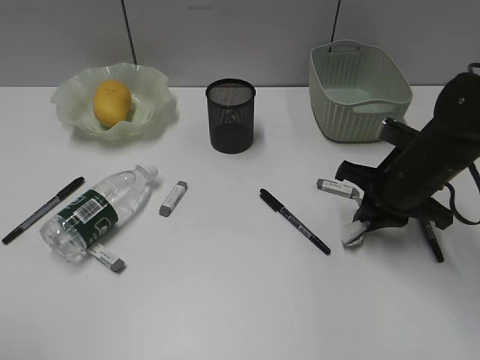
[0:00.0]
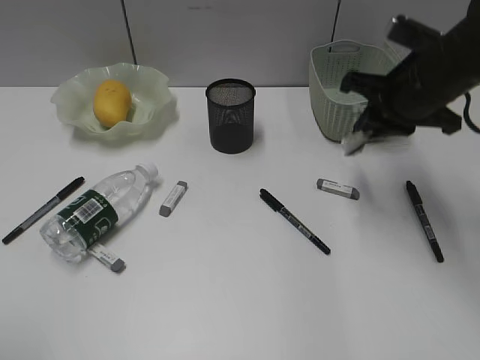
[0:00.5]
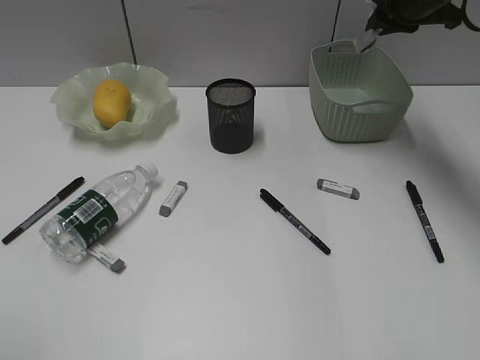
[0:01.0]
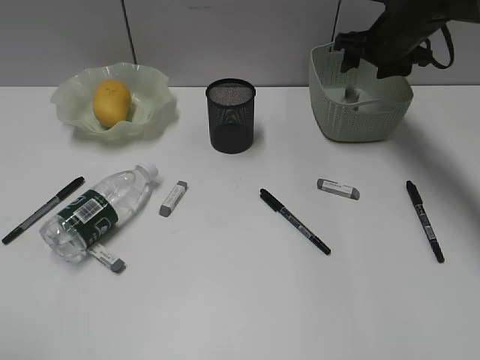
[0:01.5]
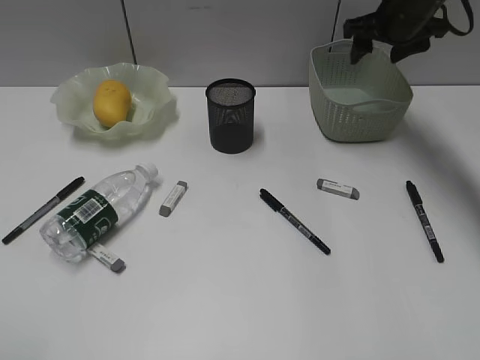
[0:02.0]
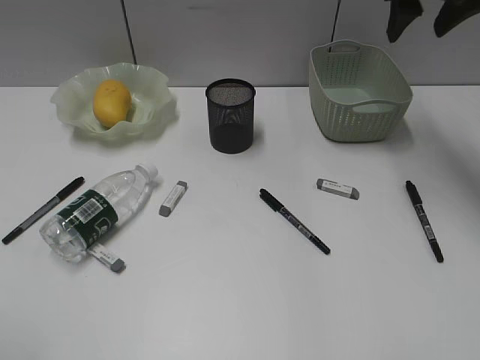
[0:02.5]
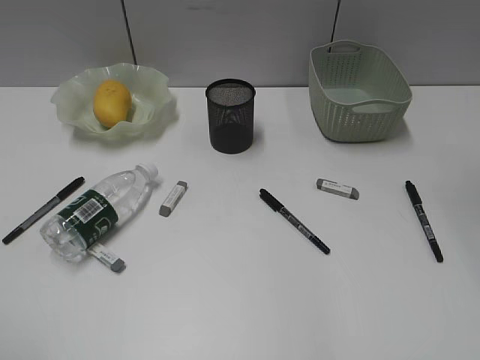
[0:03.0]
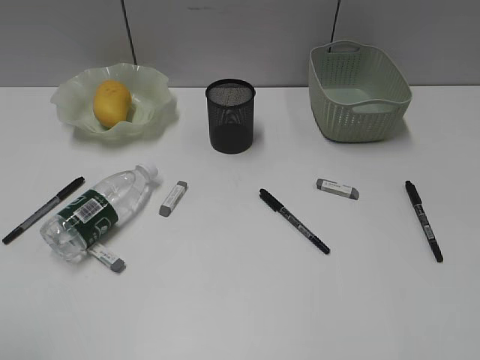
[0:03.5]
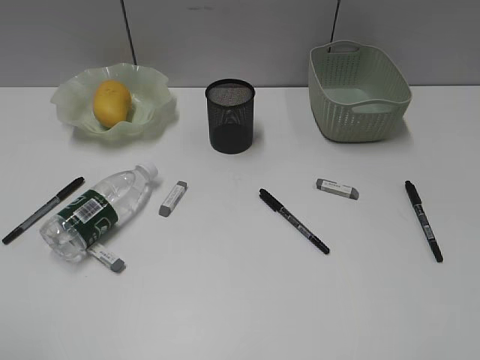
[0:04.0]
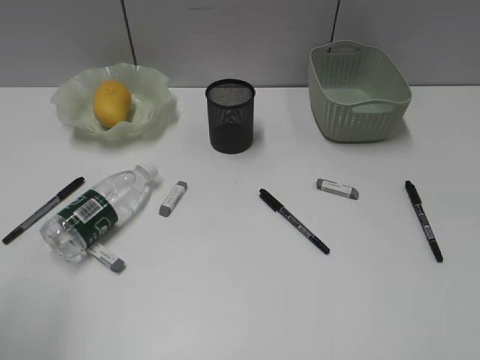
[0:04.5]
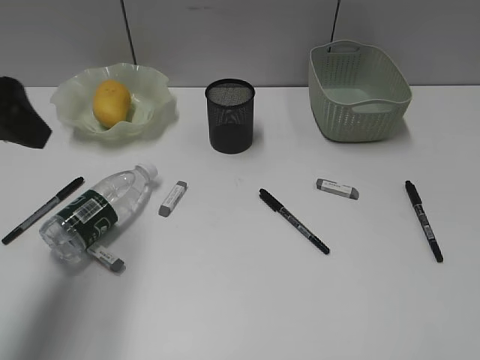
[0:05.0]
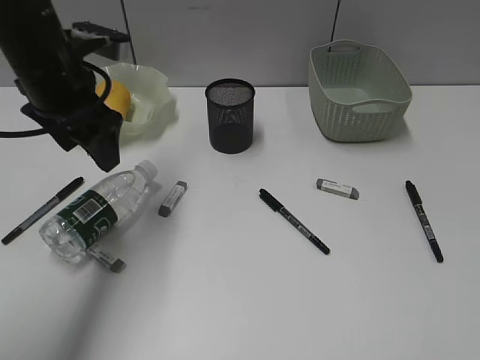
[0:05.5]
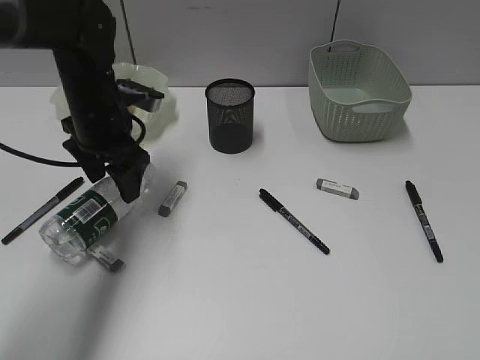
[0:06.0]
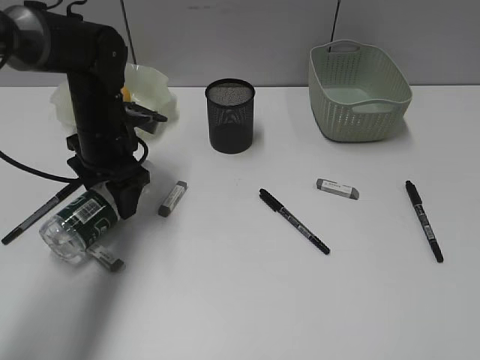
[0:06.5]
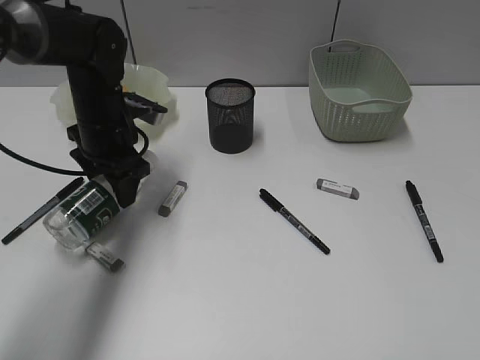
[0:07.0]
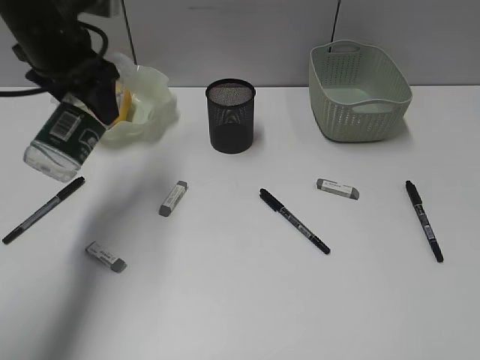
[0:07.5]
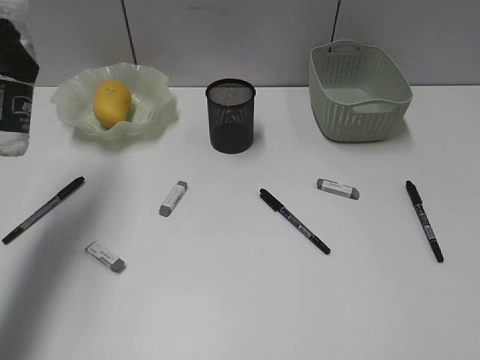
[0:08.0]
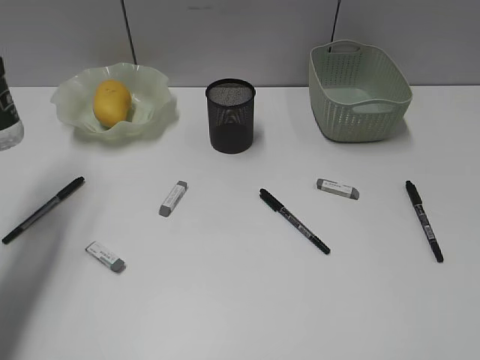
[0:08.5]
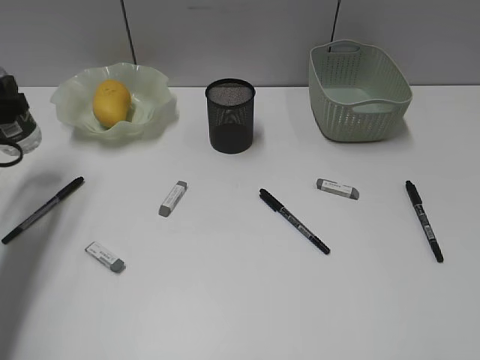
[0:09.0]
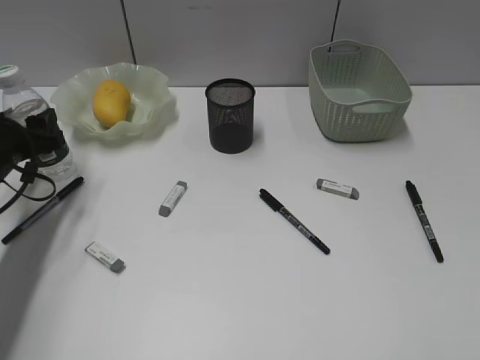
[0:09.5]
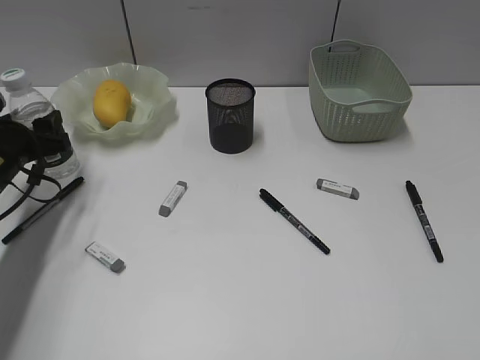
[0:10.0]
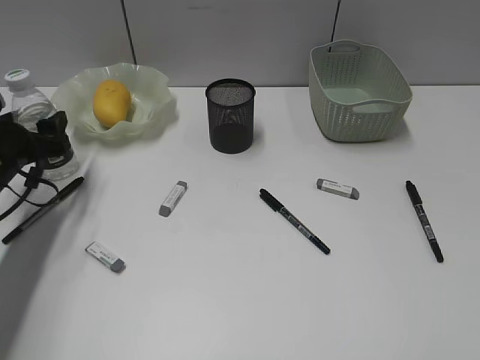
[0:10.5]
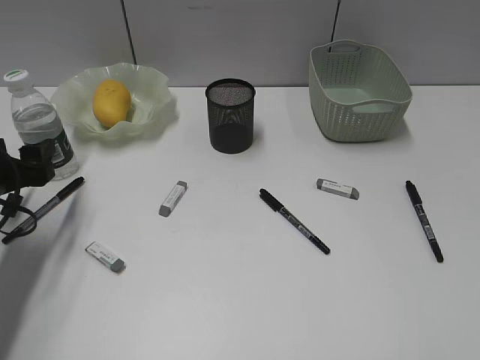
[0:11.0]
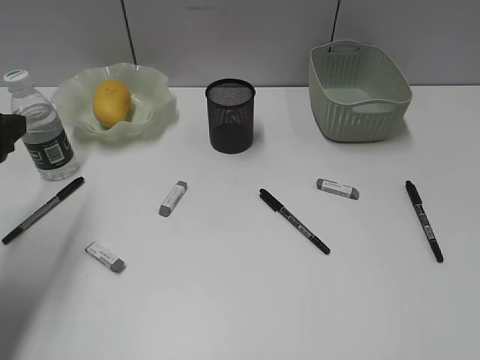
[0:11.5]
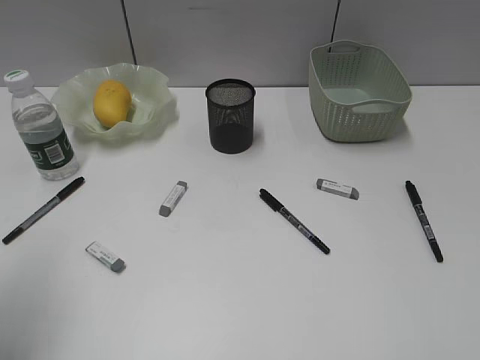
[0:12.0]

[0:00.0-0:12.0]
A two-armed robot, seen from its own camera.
Step, 0:00.0 to 0:01.5: Place the waste paper in the basket with right gripper.
Step, 0:02.0 to 0:06.5: Grasp the bottle with left gripper.
Step, 0:07.0 to 0:10.5: Stand the bottle with left gripper.
0:00.0 to 0:02.0: The right gripper travels forward and upward by roughly 20 cm, and opens.
0:02.0 to 0:04.0: The right gripper heads backward, covering roughly 50 cm.
0:04.0 to 0:06.0: The left gripper moves forward, roughly 35 cm.
0:06.0 to 0:08.0: The left gripper moves upward, to the left and backward, approximately 20 cm.
0:08.0 to 0:10.0: The left gripper shifts about 20 cm downward.
0:10.0 to 0:12.0: The left gripper heads backward and upward, covering approximately 25 cm.

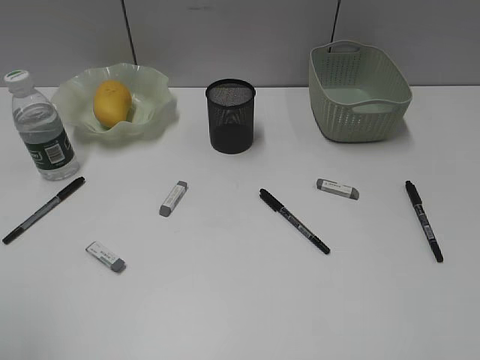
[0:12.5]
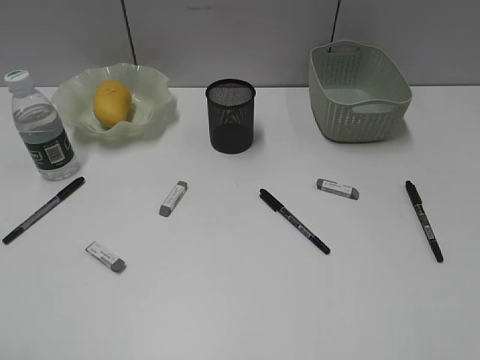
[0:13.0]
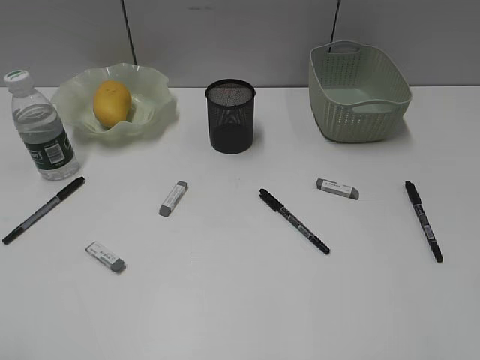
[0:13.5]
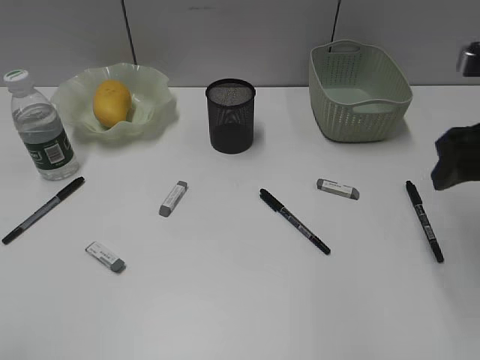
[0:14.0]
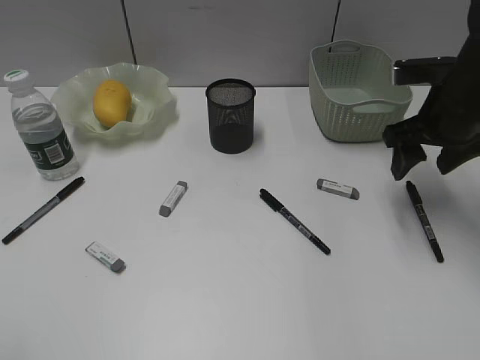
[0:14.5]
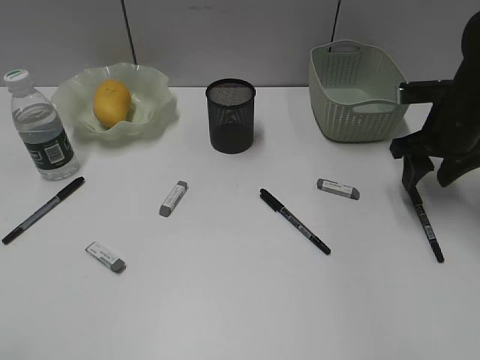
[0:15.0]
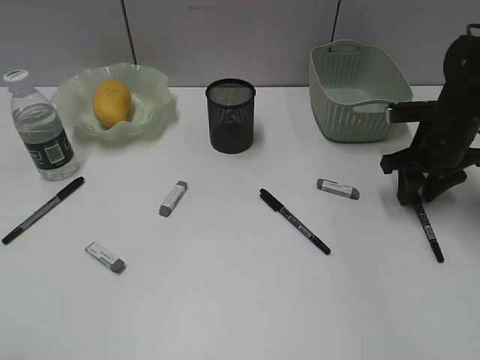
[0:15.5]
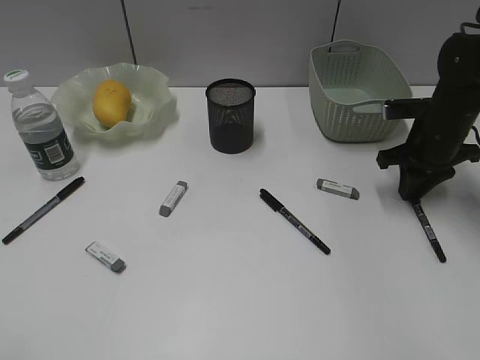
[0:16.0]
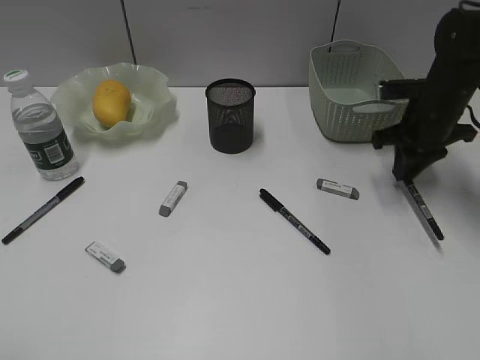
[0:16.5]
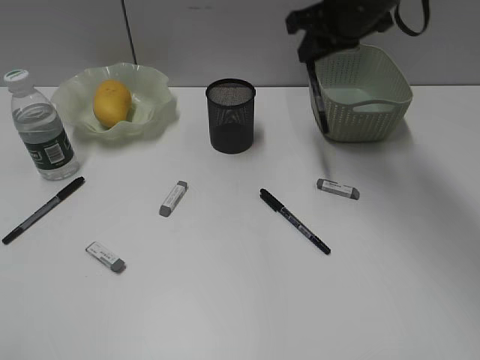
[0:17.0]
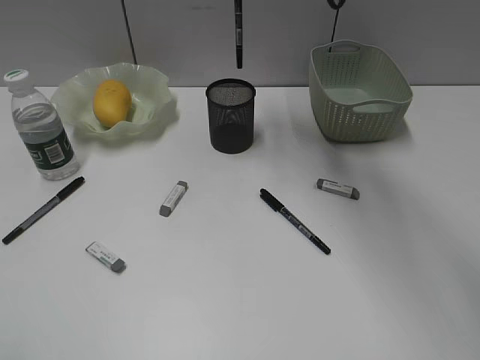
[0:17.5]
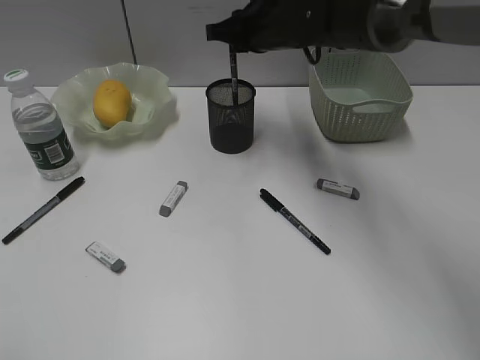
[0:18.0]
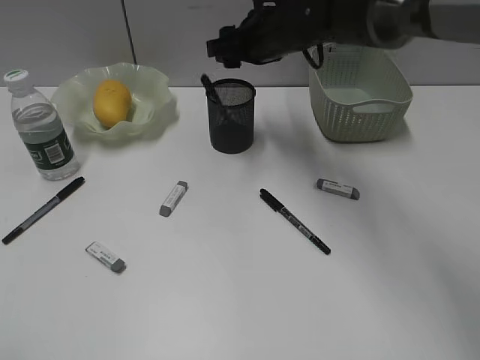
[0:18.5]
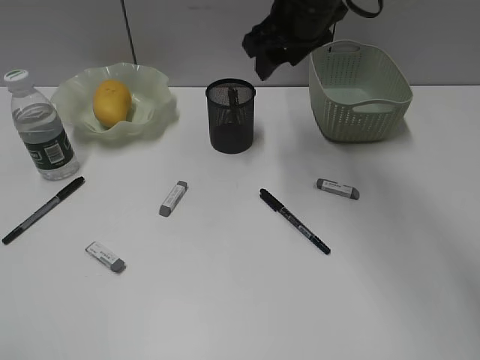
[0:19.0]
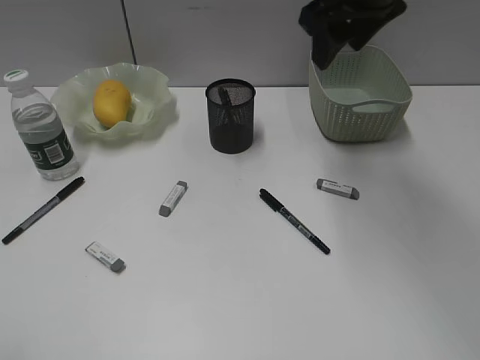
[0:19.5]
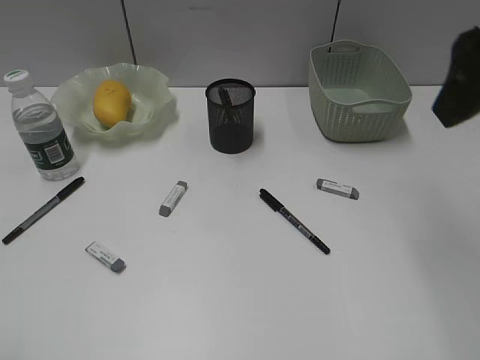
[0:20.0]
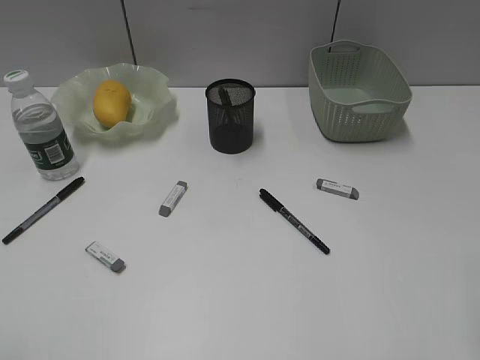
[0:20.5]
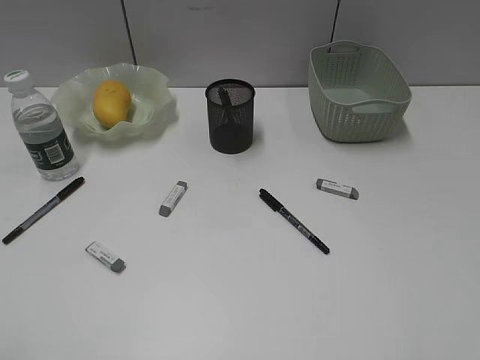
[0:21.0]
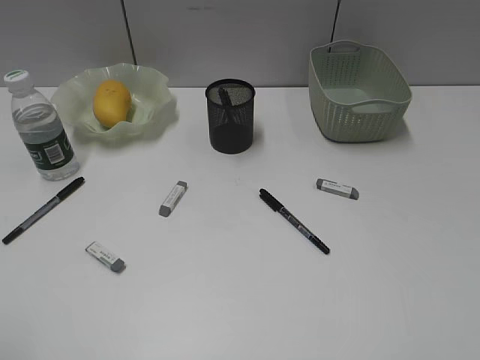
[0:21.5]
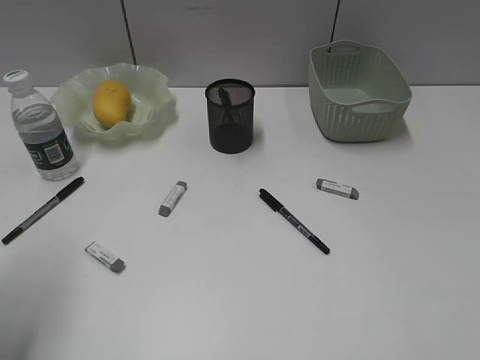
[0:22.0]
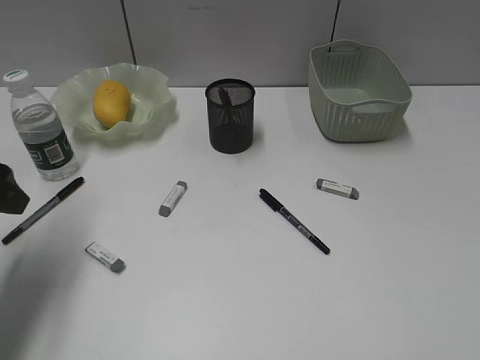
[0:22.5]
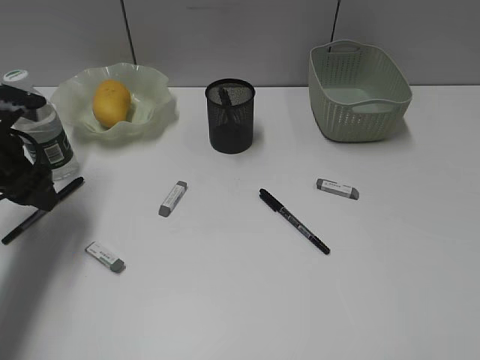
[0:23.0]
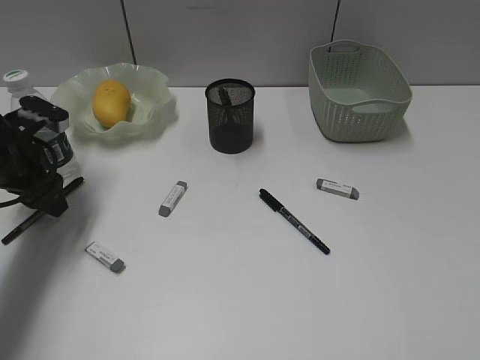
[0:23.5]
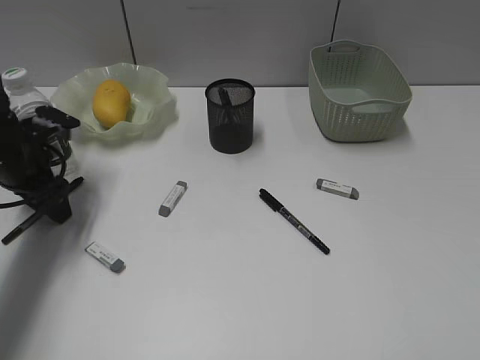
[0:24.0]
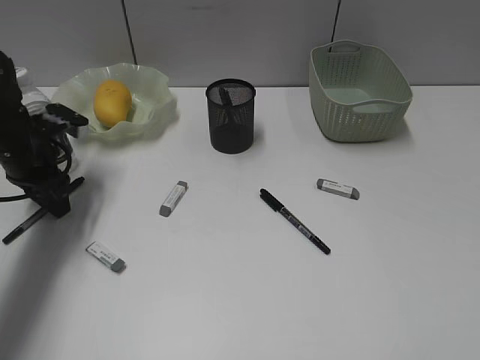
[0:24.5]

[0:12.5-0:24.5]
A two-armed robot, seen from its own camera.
Step, 0:12.5 to 0:16.0: Grasp the black pen with right gripper.
Step, 0:16.5 to 0:18.0: Place the black pen in pen holder with right gripper.
0:12.5 to 0:14.5: The right gripper shifts about 35 cm forward.
0:14.5 to 0:16.5: The right gripper goes roughly 10 cm downward and forward, and closes its fingers.
0:16.5 to 0:18.5: The right gripper moves to the left, roughly 20 cm, and opens.
0:18.5 to 0:20.5: The right gripper heads backward and to the right, covering roughly 40 cm.
0:20.5 to 0:22.5: The left gripper shifts some 25 cm forward.
0:22.5 to 0:24.5: The left gripper travels forward and downward by about 15 cm.

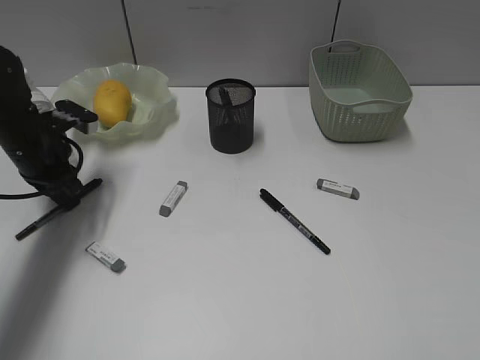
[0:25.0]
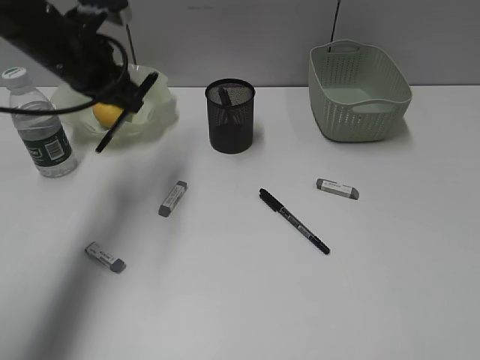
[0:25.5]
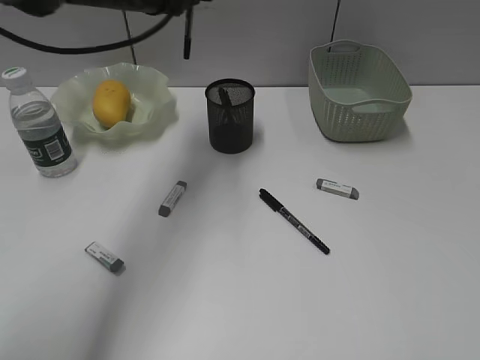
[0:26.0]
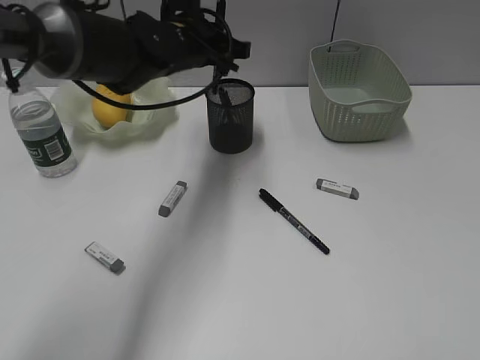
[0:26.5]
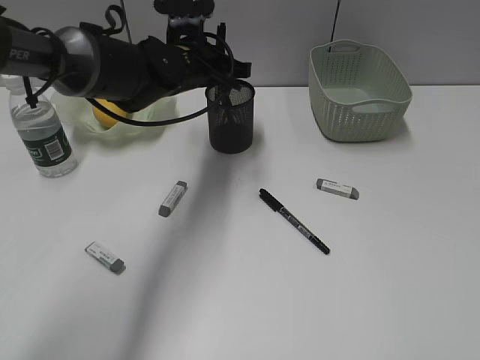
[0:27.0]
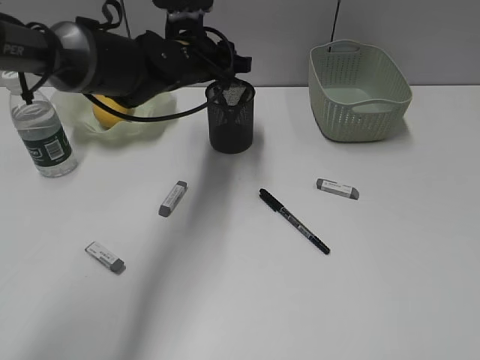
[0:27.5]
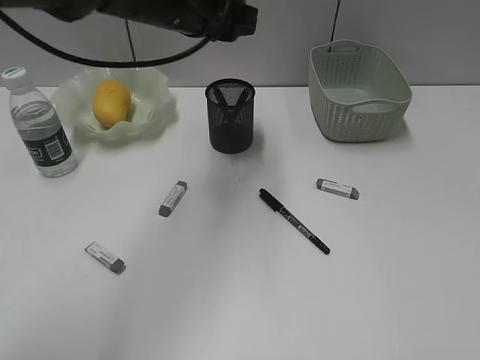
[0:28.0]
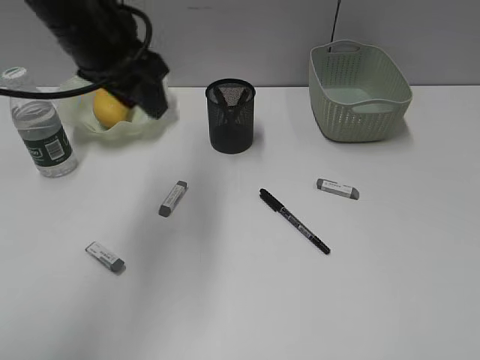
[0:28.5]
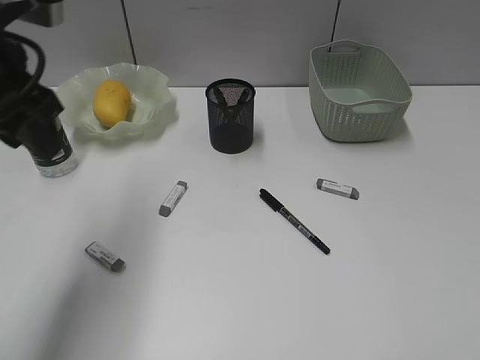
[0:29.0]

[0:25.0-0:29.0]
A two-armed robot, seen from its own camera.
Step, 0:25.0 to 0:27.0: Place the black pen in pen holder with left gripper.
0:25.0 to 0:27.0: The left gripper shifts about 20 cm to the right.
0:27.0 to 0:29.0: The left gripper is displaced backward, to the left and upward by some 25 cm, and opens.
